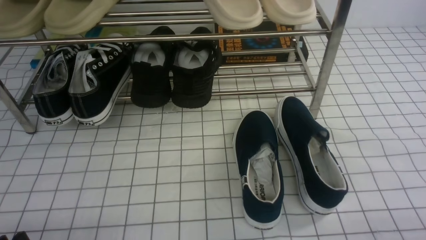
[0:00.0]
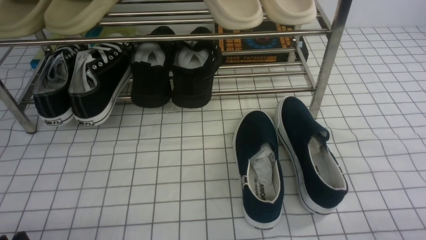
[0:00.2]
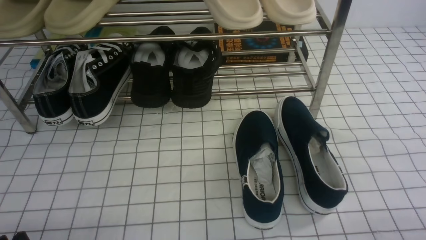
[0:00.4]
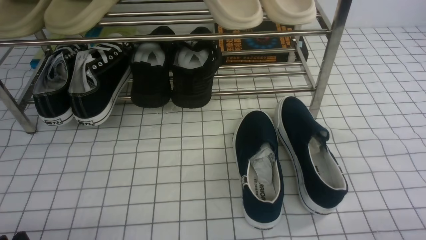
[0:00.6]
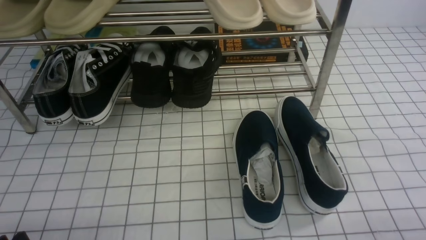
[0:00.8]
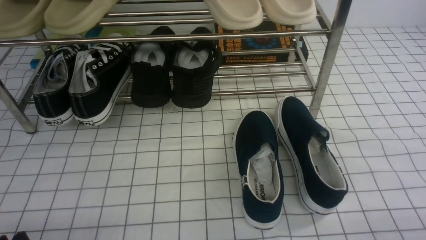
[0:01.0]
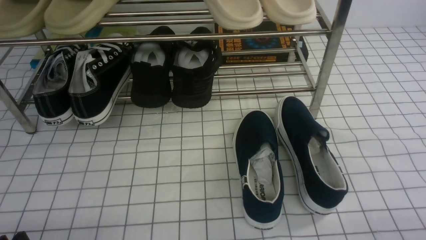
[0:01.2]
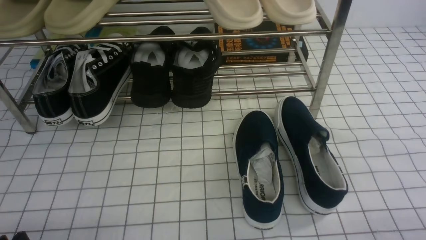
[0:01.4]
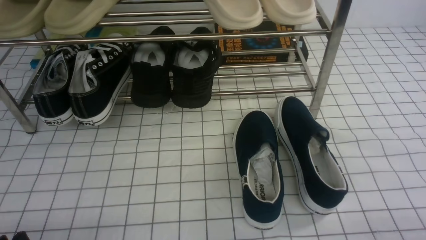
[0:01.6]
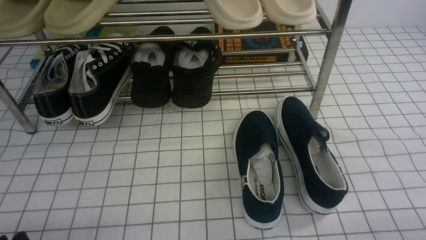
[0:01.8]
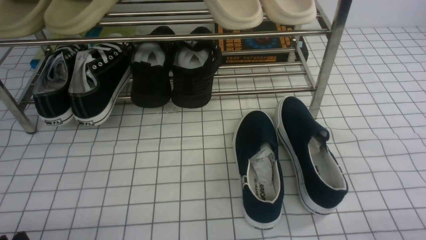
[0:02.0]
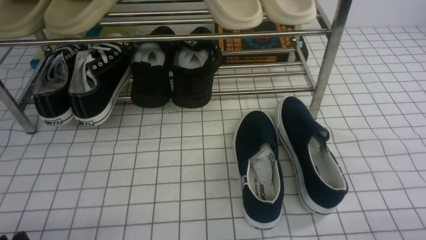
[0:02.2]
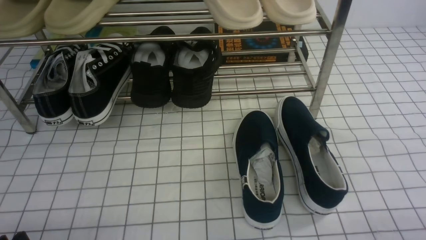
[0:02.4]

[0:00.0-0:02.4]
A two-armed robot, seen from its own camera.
0:00.0 to 0:02.4: Both grippers stay put.
